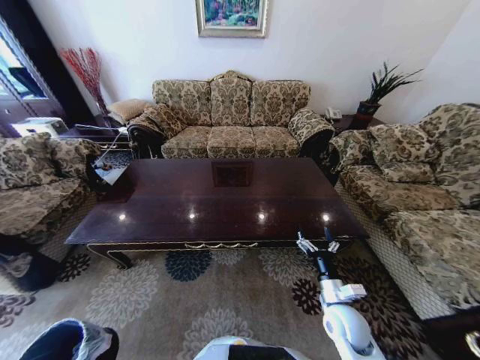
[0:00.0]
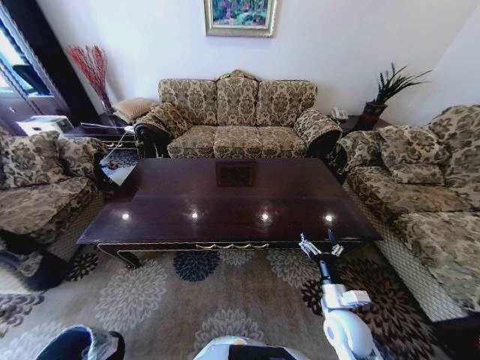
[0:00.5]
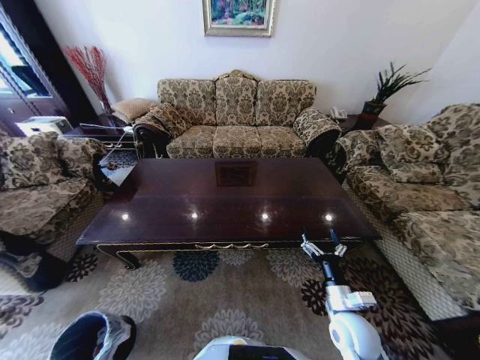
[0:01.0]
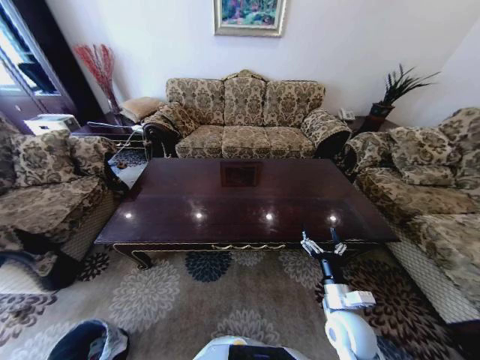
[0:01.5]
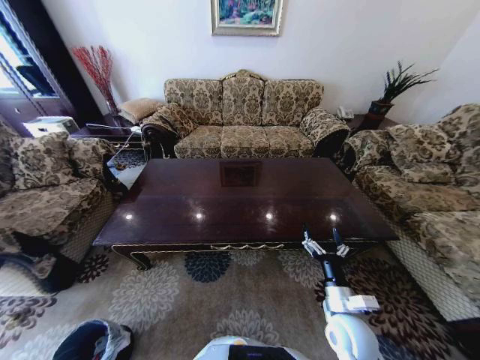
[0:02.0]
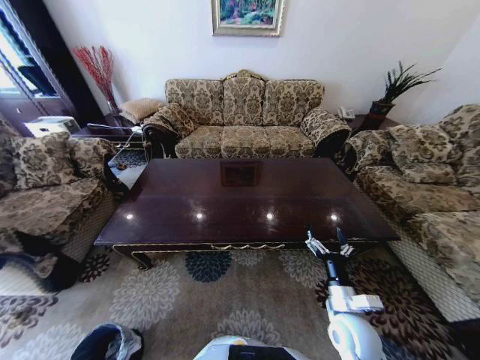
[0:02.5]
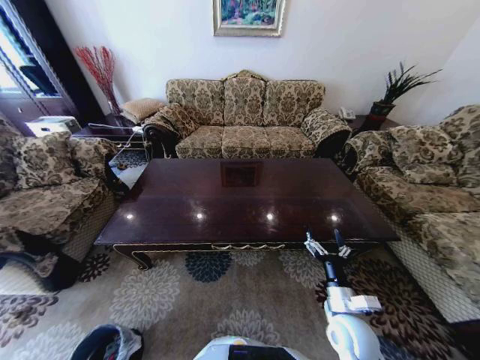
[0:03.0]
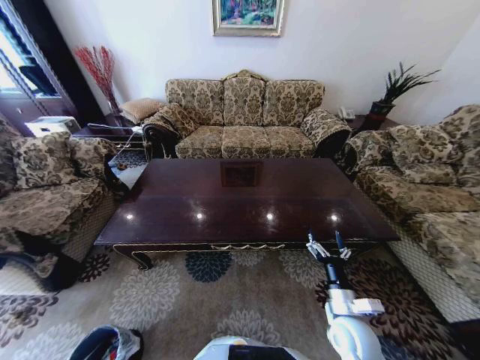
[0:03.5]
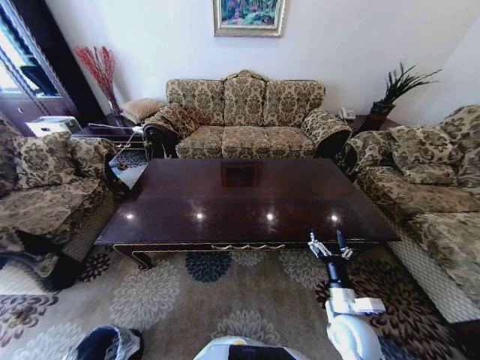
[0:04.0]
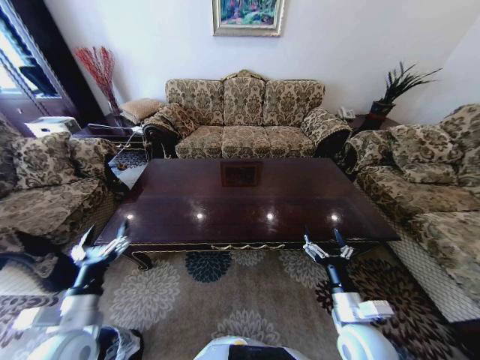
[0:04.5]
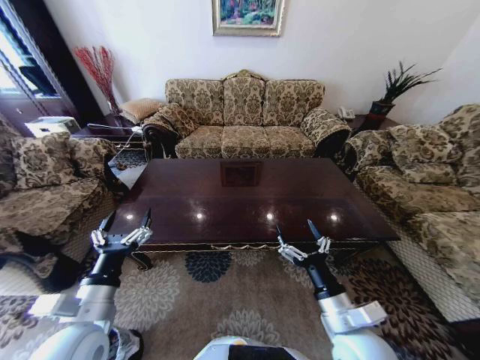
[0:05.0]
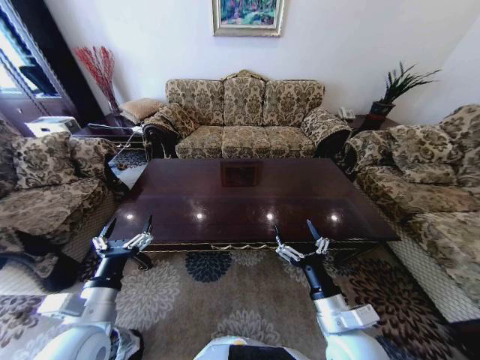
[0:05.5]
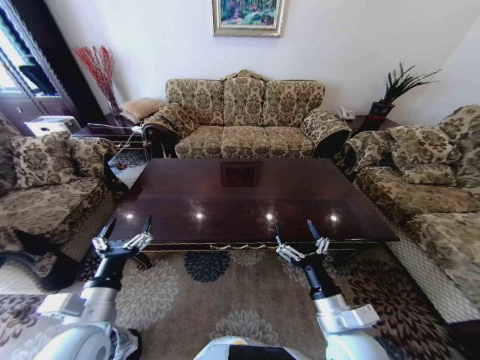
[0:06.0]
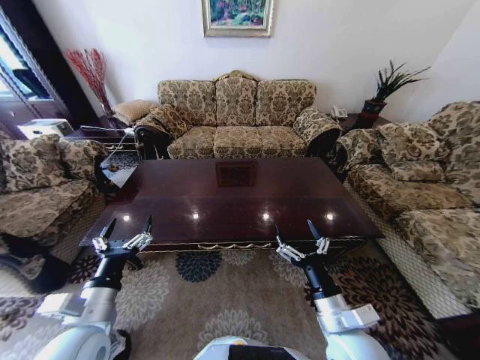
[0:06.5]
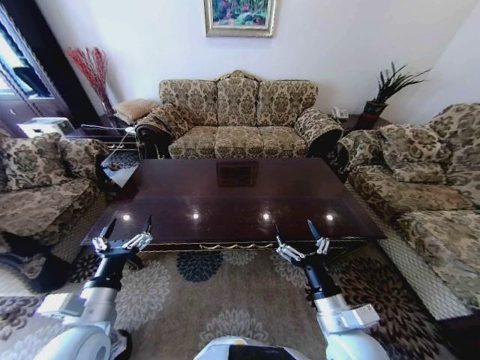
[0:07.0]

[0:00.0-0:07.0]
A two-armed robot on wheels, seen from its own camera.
Task of the whole recording: Move to the front of the table and place the trash on the table into the trash bin.
0:00.0 to 0:02.0: The left gripper shifts about 10 cm downward.
0:02.0 to 0:03.5: The left gripper shifts by some 5 cm, and opens its fingers.
0:03.5 to 0:05.0: The right gripper shifts roughly 10 cm upward. Meanwhile the left gripper heads upward and to the right, covering some 40 cm.

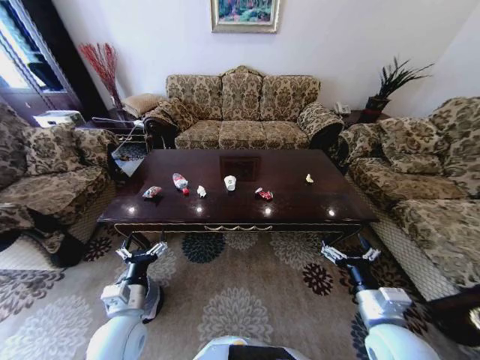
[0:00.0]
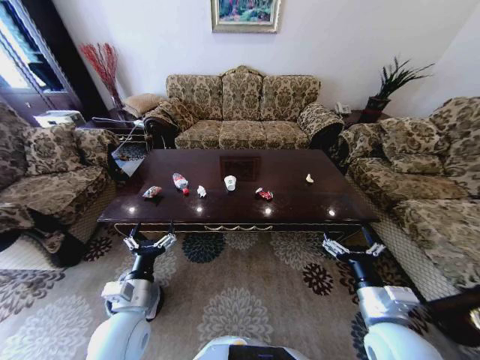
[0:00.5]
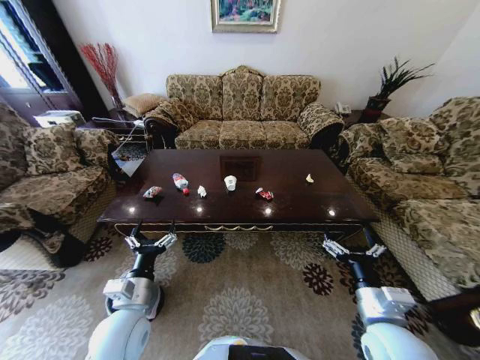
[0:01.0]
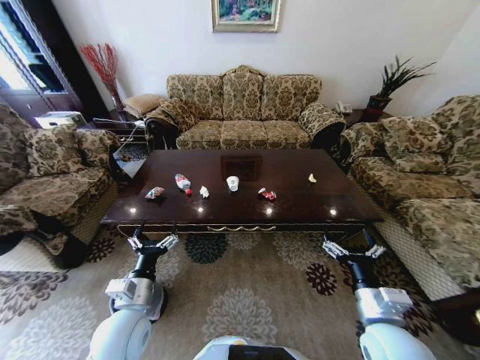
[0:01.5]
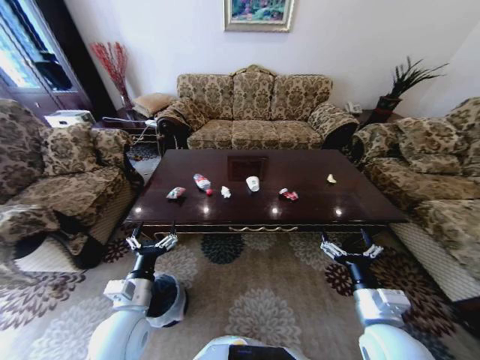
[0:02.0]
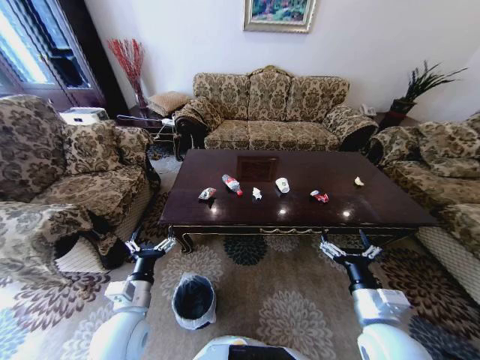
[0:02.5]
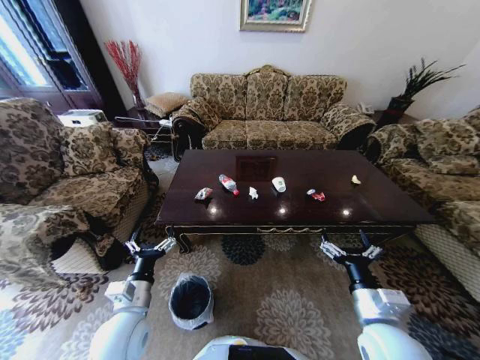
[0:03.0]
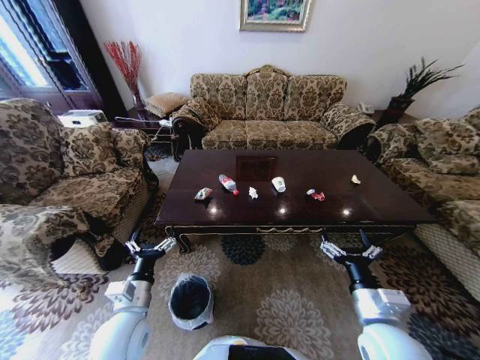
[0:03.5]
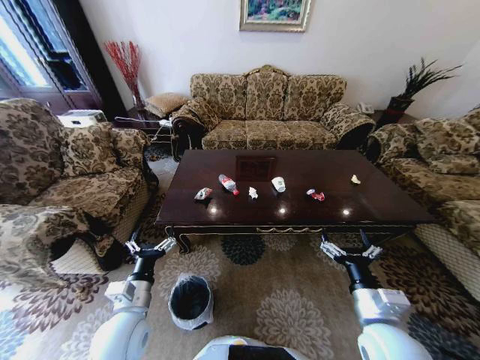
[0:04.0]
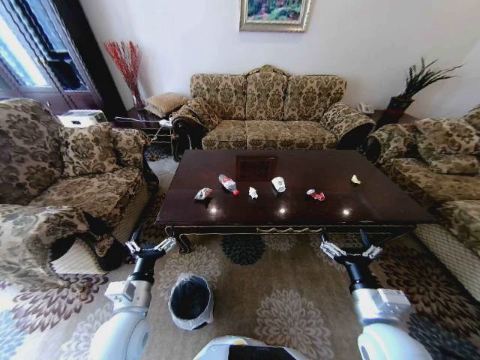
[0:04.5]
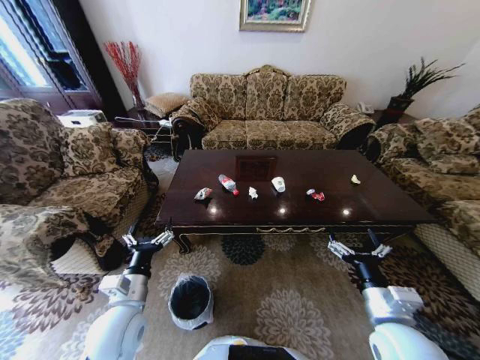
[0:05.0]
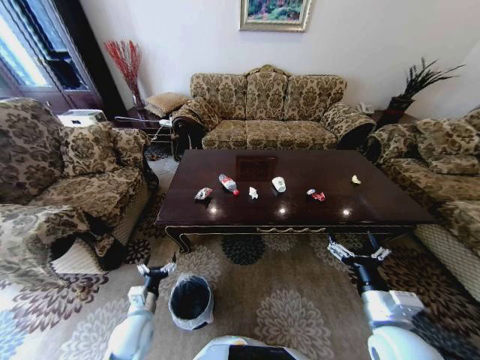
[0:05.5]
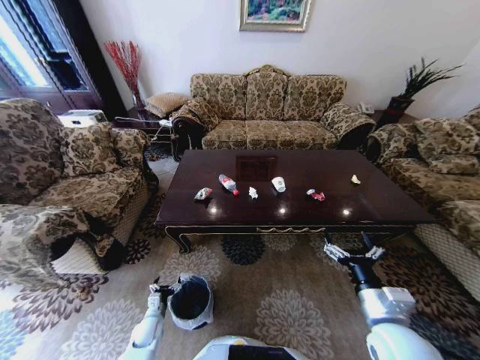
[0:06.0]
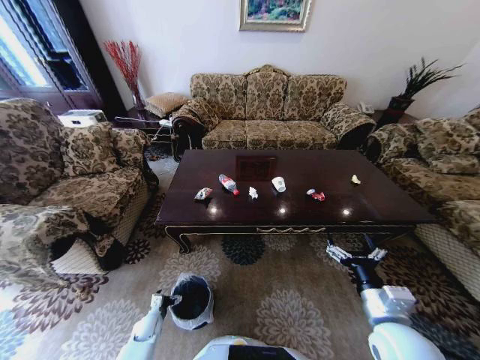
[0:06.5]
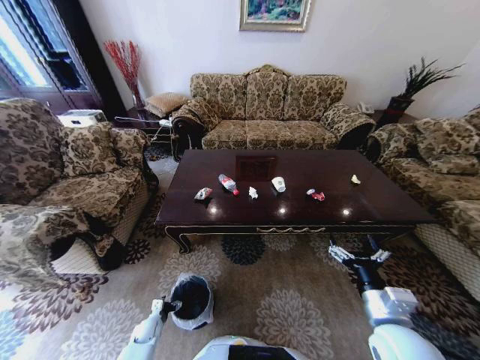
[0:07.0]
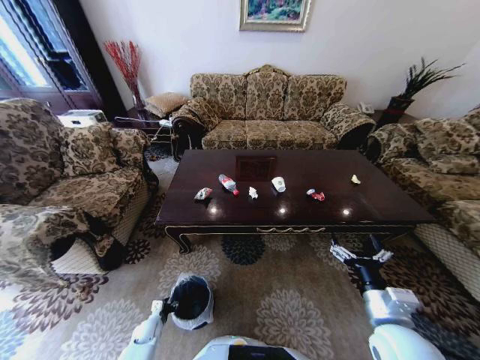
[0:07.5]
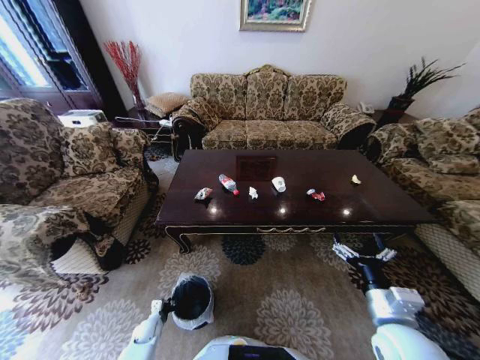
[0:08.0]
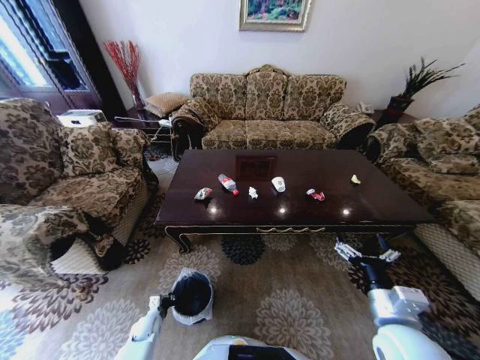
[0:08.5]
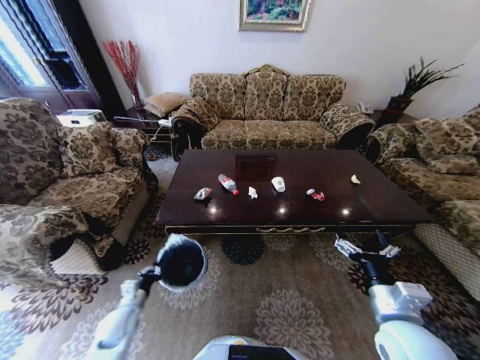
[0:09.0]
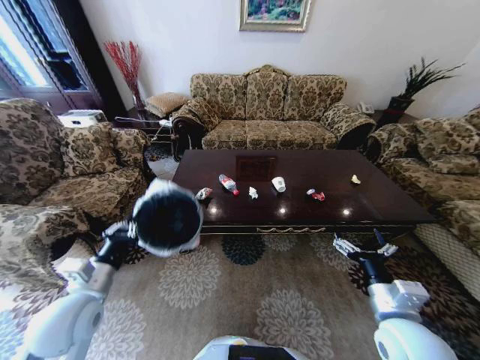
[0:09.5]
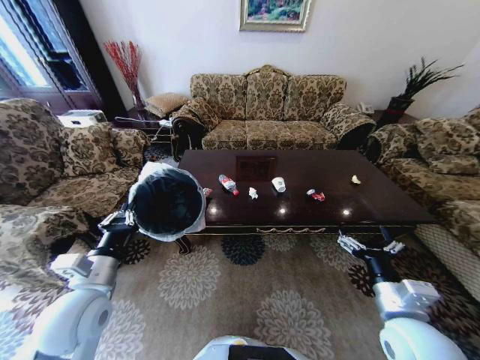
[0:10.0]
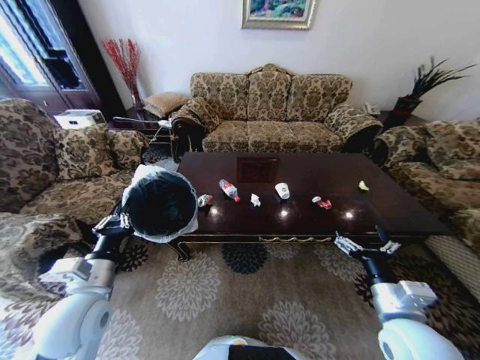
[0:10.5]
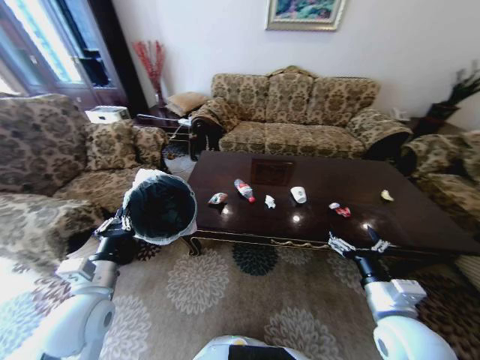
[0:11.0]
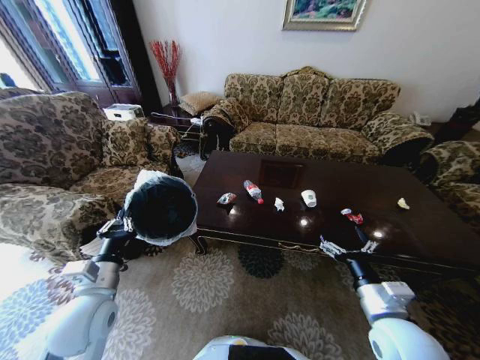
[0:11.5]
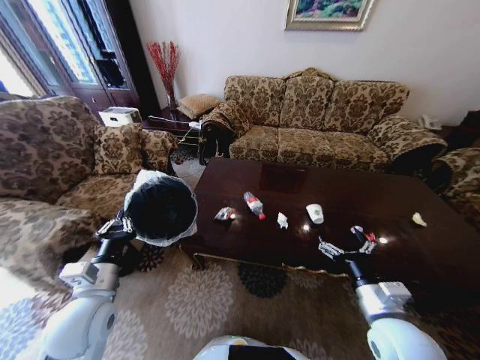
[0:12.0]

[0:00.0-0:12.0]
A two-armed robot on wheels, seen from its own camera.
Task of the whole recording: Move to the front of the table and place the trash on the table into the trash bin.
0:04.0 to 0:06.0: The left gripper is displaced downward by roughly 30 cm.
0:06.0 to 0:08.0: The left gripper shifts approximately 5 cm downward, and closes its fingers.
0:08.0 to 0:10.0: The left gripper is displaced upward by approximately 40 cm.

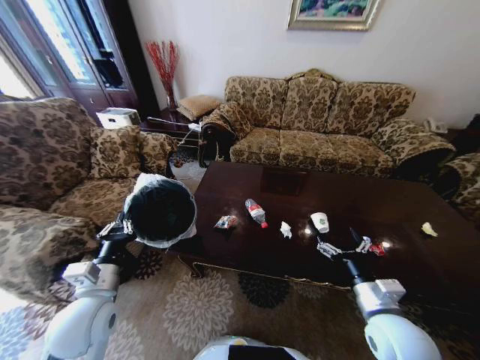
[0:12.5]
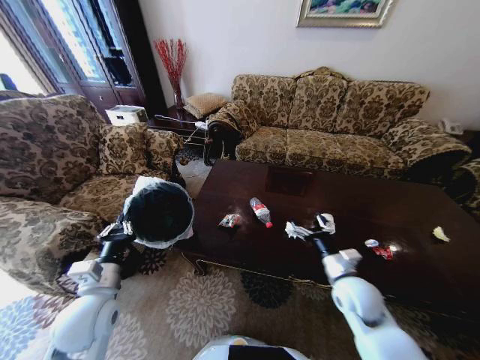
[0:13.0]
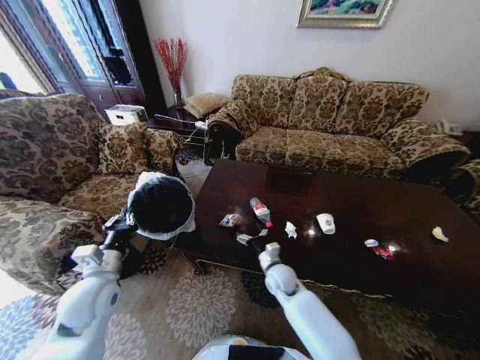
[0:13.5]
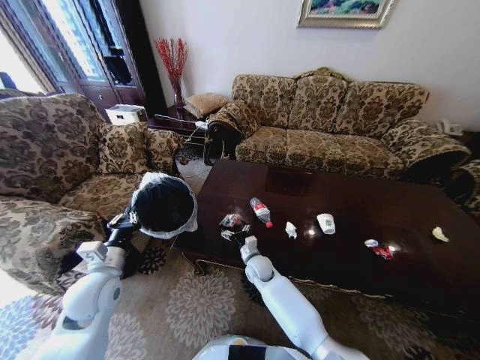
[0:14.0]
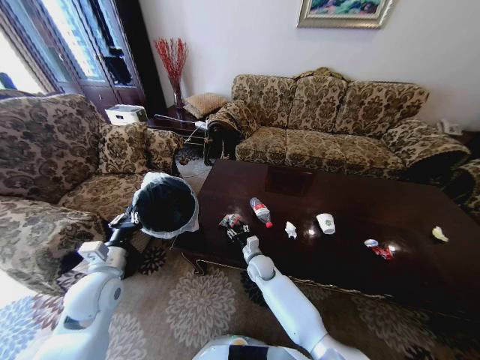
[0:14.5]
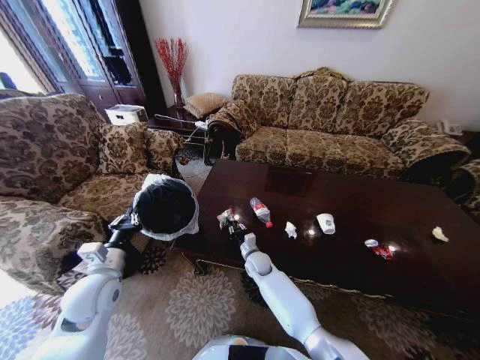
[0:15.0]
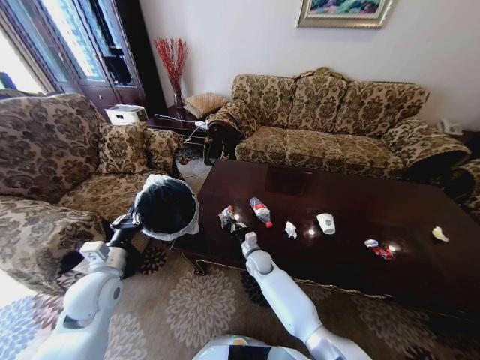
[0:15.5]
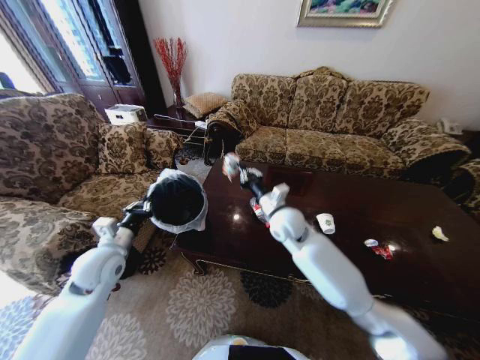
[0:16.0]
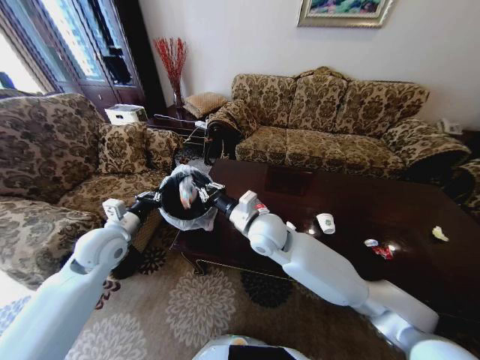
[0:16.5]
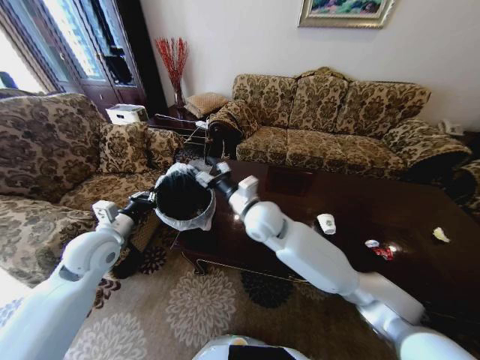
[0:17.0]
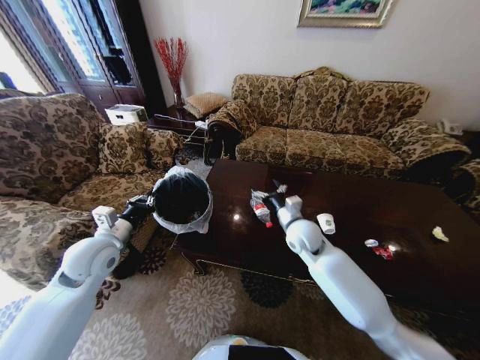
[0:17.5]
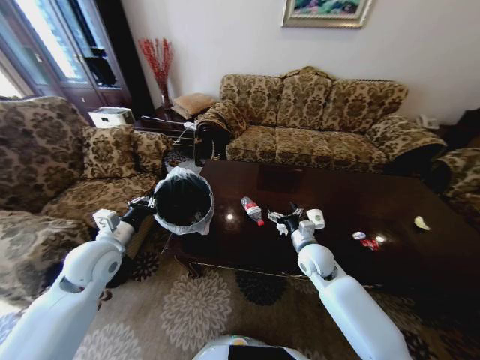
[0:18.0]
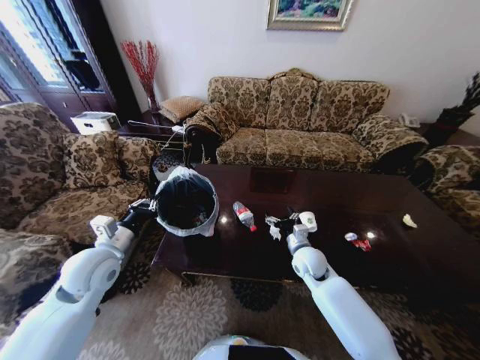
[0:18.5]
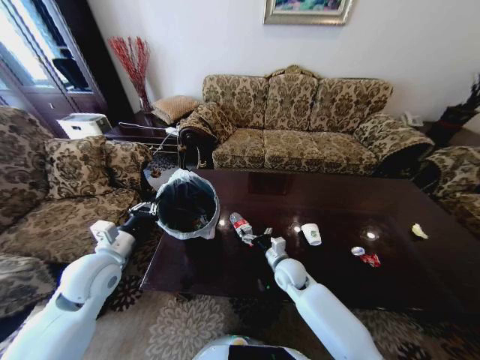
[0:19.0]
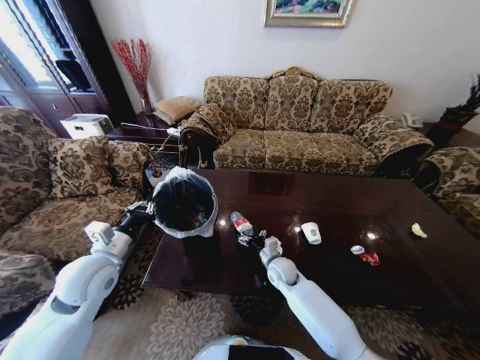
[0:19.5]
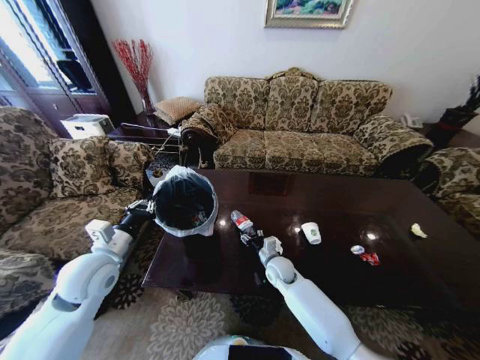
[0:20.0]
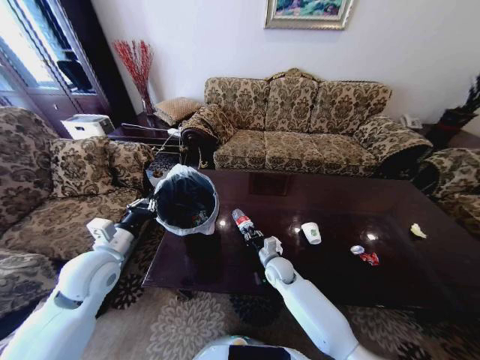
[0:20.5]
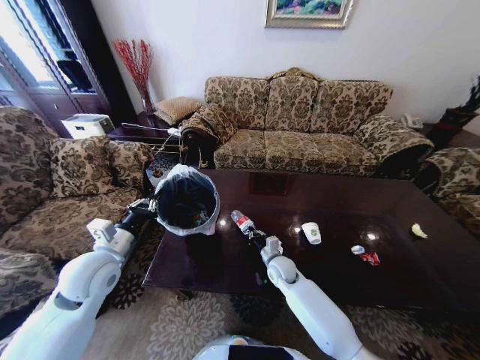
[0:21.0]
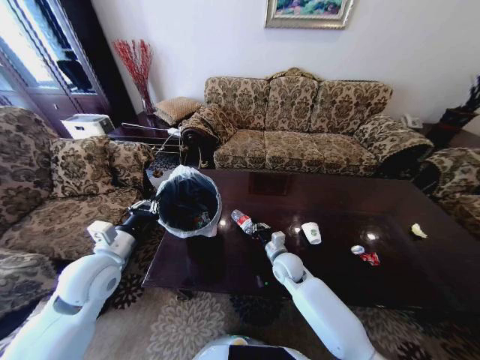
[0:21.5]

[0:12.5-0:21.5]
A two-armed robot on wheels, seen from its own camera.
Task of the whole recording: Move to the front of the table and place the trash on the table into the trash bin.
0:12.5 to 0:14.5: The left gripper moves forward, roughly 5 cm; the right gripper is displaced to the left, forward and downward by approximately 35 cm, and closes up.
0:14.5 to 0:17.0: The left gripper travels upward and forward by approximately 10 cm; the right gripper shifts roughly 30 cm upward, and closes, then opens again.
0:17.0 to 0:19.5: The right gripper is displaced downward by some 25 cm, and opens. Meanwhile the left gripper moves backward, some 5 cm.
0:19.5 to 0:21.5: The right gripper closes up.
